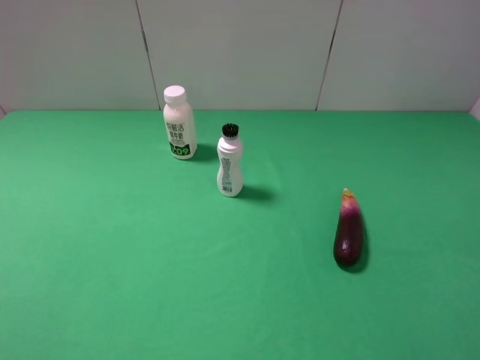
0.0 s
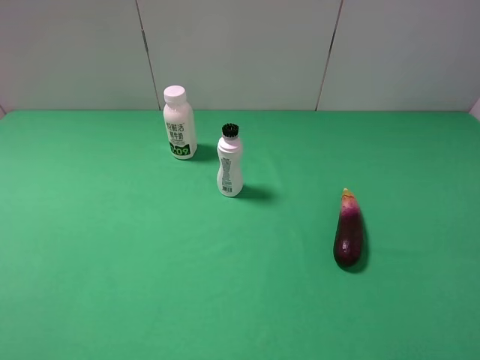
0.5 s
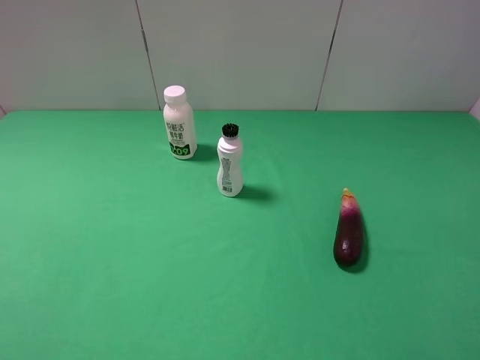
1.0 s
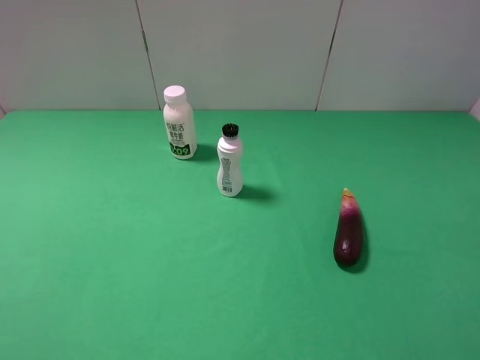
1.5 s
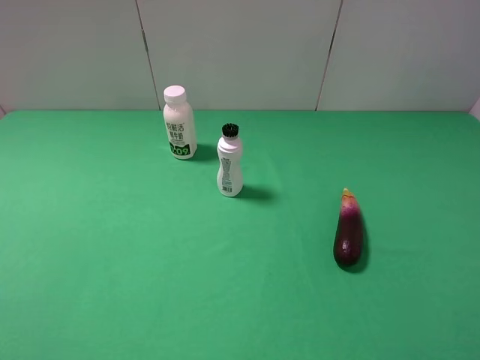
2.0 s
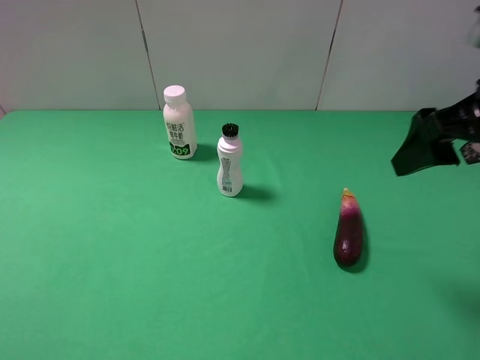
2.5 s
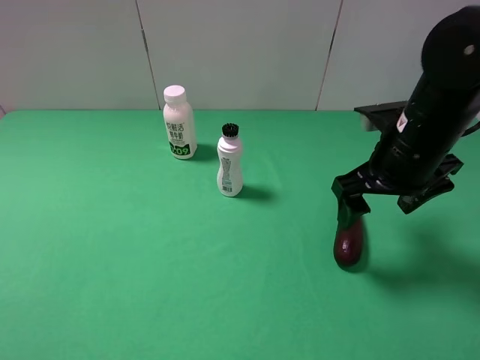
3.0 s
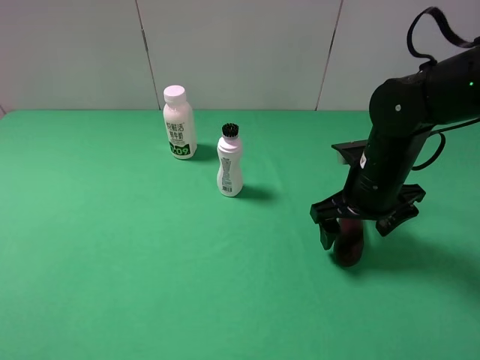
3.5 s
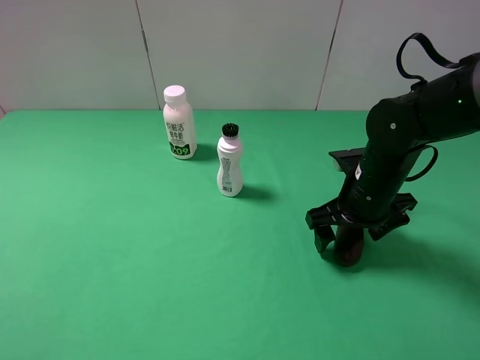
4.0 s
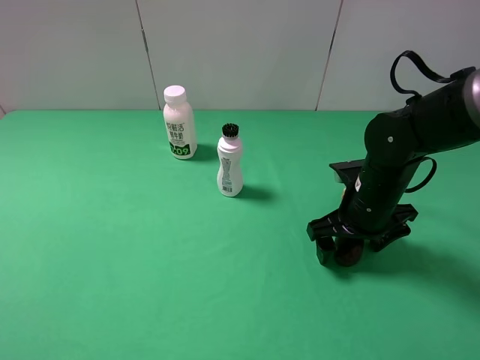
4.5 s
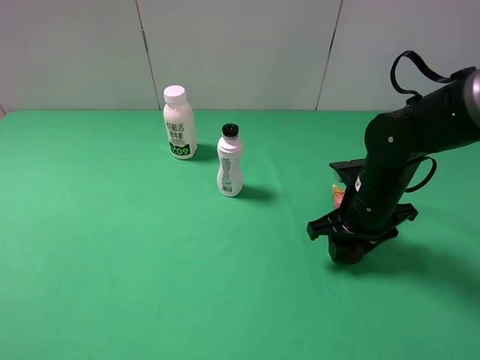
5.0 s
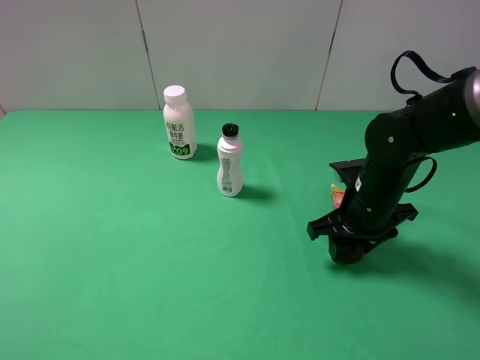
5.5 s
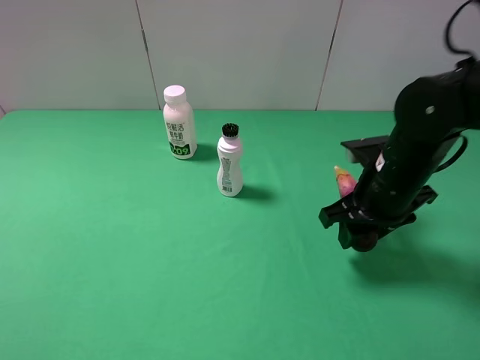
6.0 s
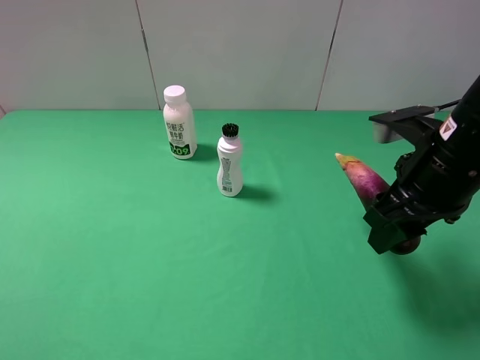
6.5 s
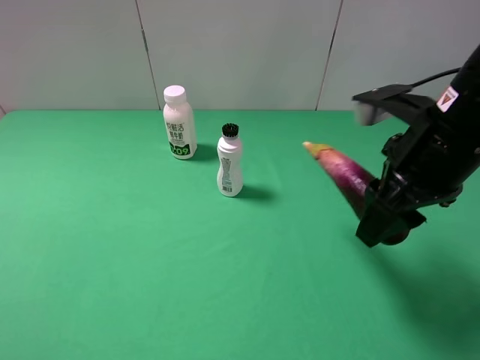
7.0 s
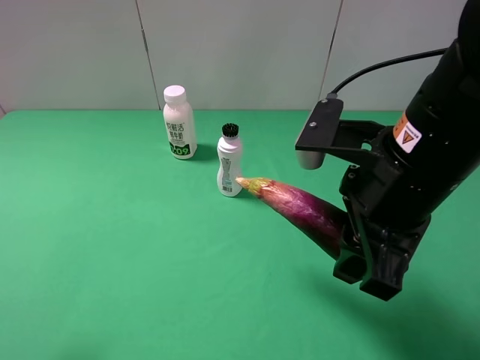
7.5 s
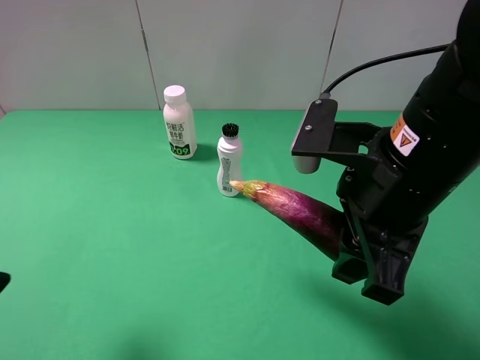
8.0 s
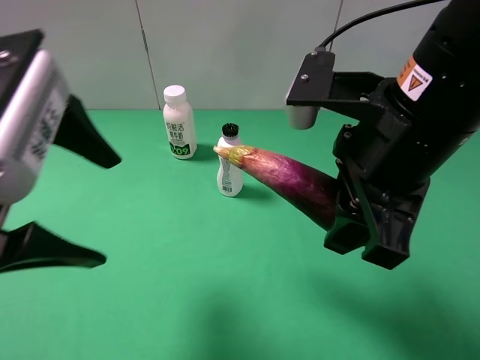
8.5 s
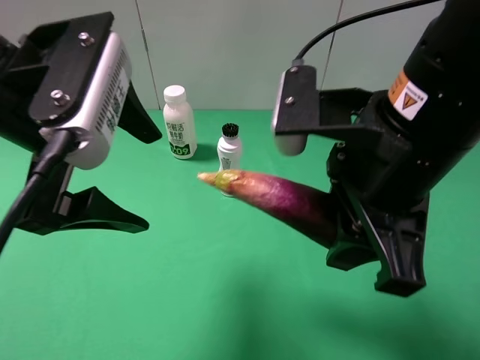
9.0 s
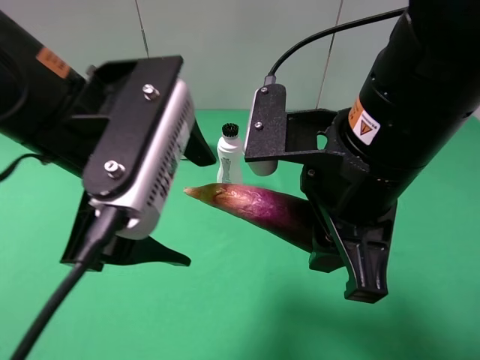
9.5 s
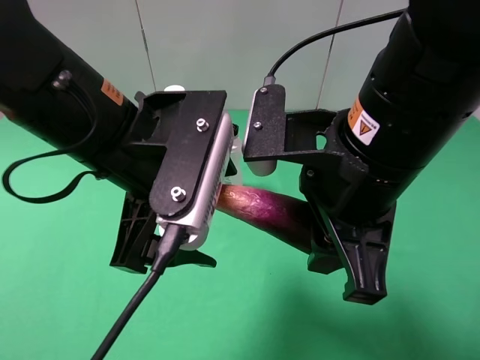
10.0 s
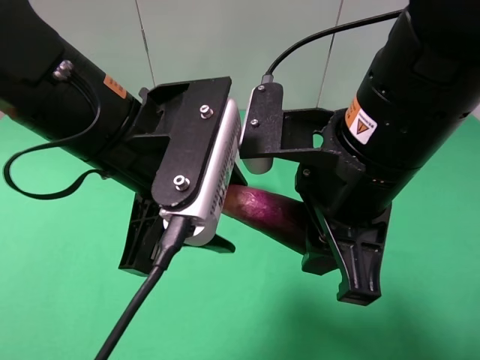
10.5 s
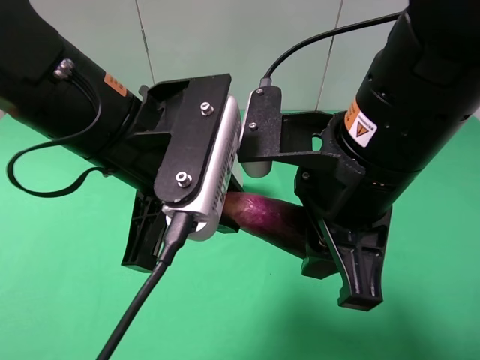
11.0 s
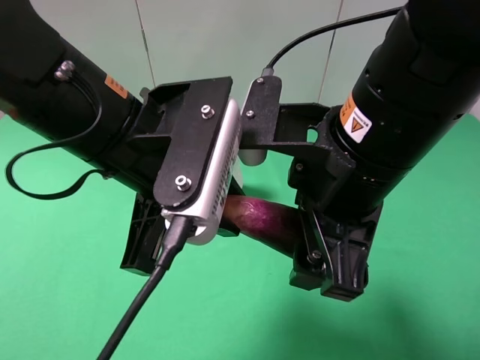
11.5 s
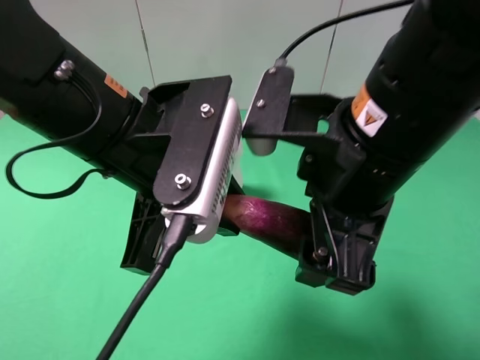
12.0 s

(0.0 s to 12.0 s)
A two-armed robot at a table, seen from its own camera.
Task of the whole recording: use the right gripper to pick up the item and transfer it from the right gripper to the left gripper.
2.0 s - 4.0 s: The right gripper is displaced downward, forward and to the left by approximately 30 cm.
4.0 s - 6.0 s: The right gripper ends up approximately 5 cm from where it was, and closes its fingers.
6.0 s - 8.0 s: The left gripper shifts approximately 10 cm forward and to the right. The right gripper heads upward, backward and to the left, covering some 15 cm.
8.0 s - 10.0 s: The left gripper moves to the right and forward, some 20 cm.
10.0 s - 12.0 s: The right gripper opens up, while the left gripper closes up.

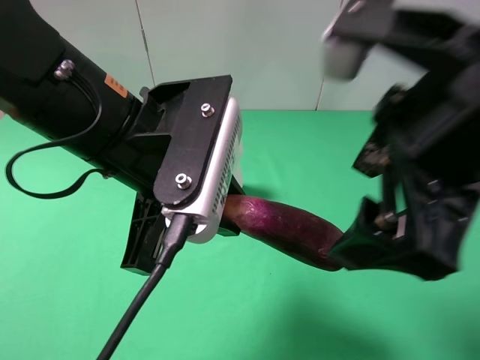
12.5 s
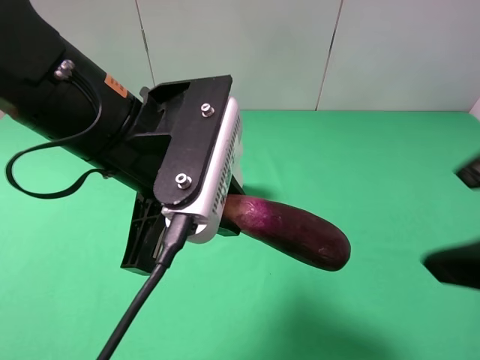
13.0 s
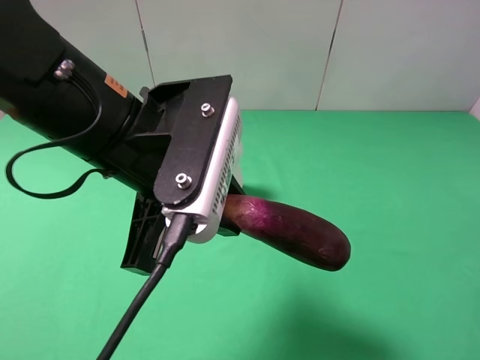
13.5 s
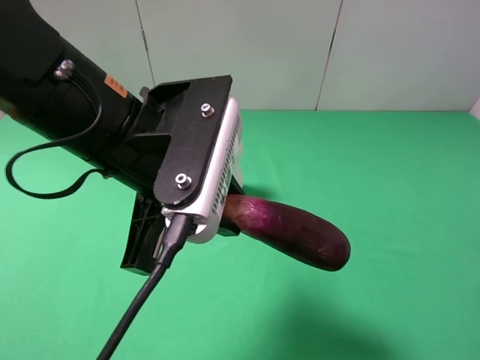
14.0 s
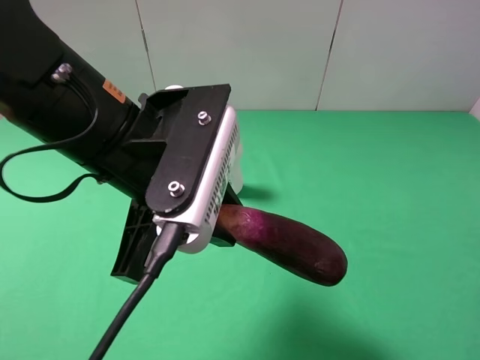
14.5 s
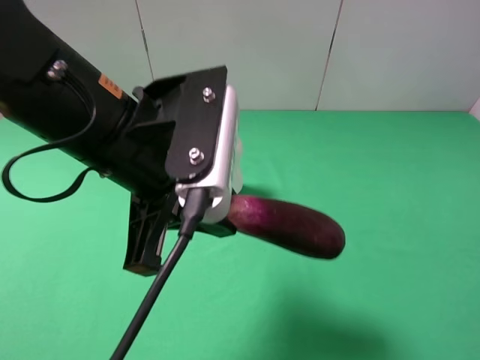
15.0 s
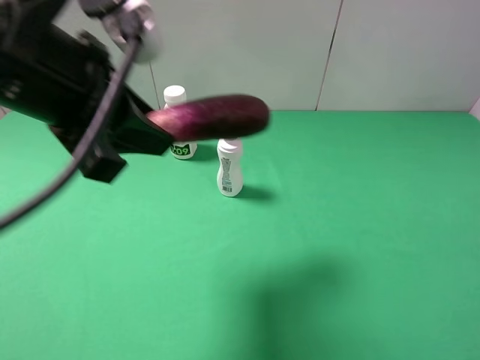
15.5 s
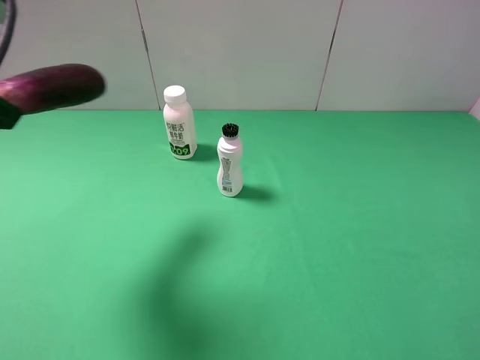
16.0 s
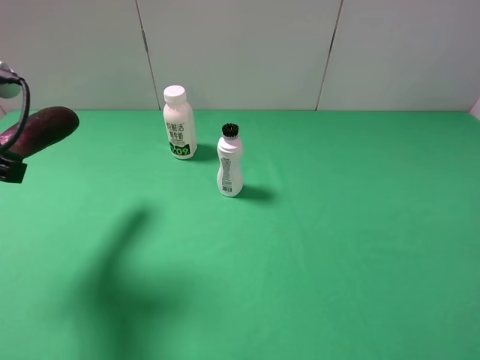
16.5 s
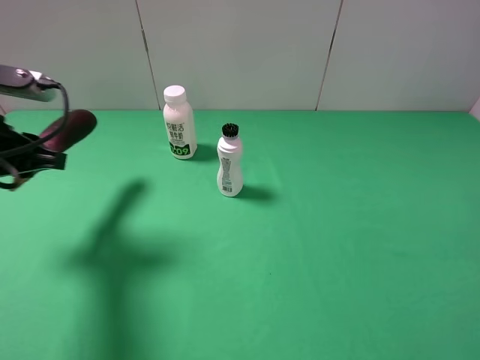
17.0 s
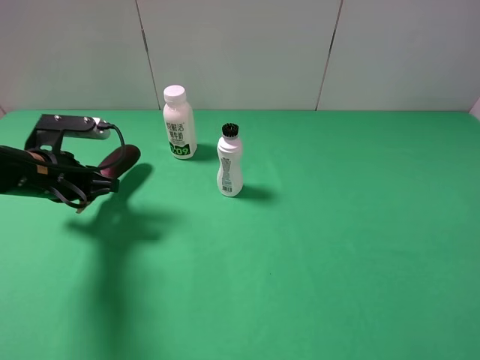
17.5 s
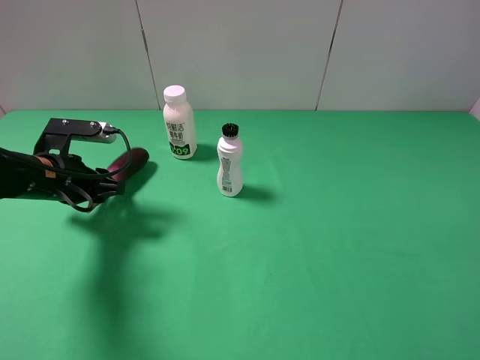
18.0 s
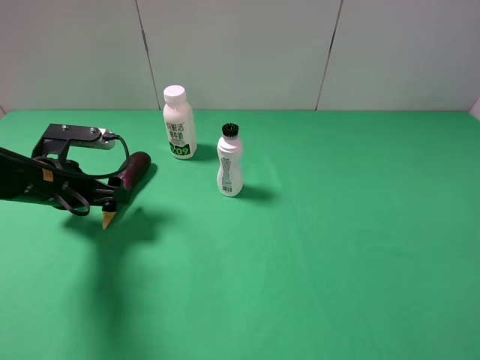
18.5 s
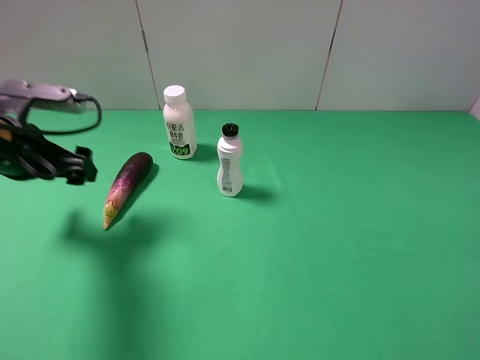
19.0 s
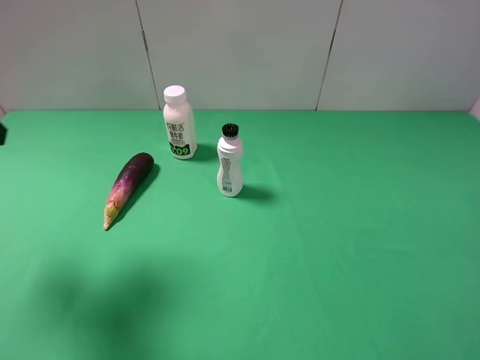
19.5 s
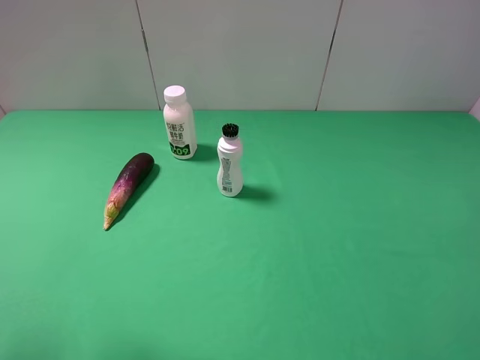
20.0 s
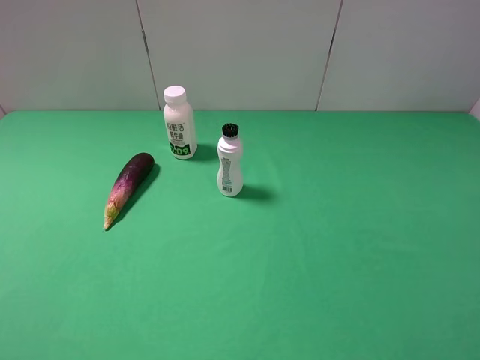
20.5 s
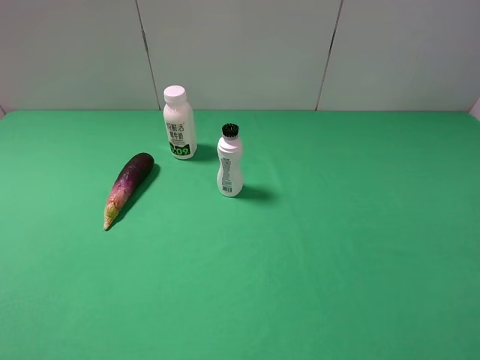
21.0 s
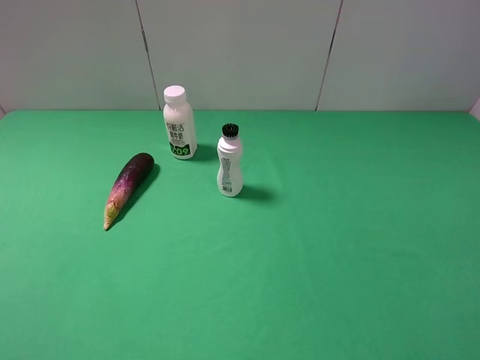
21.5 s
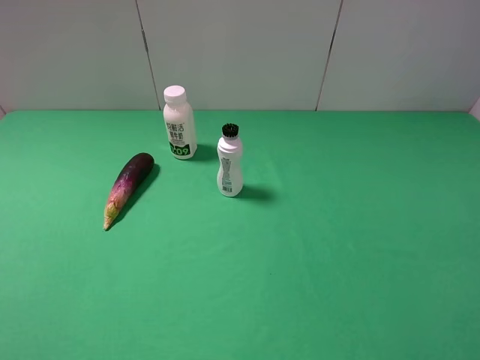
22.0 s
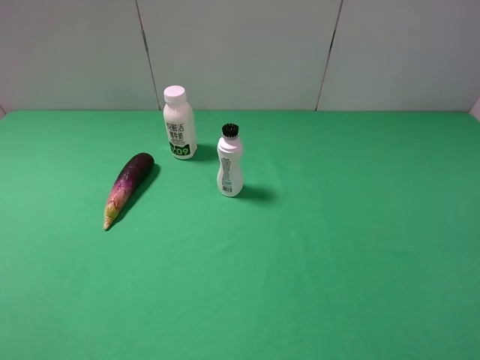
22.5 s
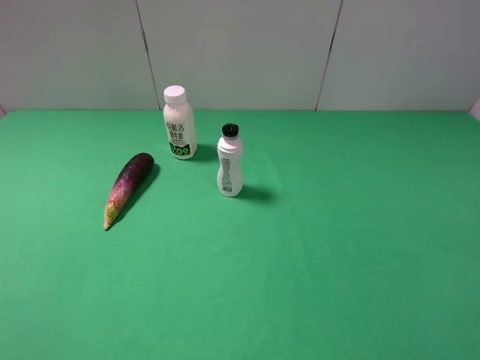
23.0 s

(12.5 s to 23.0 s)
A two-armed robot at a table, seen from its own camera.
Task of the whole recording: use the right gripper to pick up the item and transfer it from the right gripper to the left gripper.
Step, 12.5 s - 18.5 s: The left gripper places eggplant on the left side of the table.
12.5 s - 14.5 s: The right gripper moves to the right and backward, roughly 20 cm.
14.5 s - 16.5 s: The left gripper is displaced to the left by about 20 cm.
16.5 s - 19.0 s: The left gripper shifts approximately 10 cm forward and downward, and opens.
19.0 s - 21.0 s: The left gripper moves backward, approximately 25 cm.
